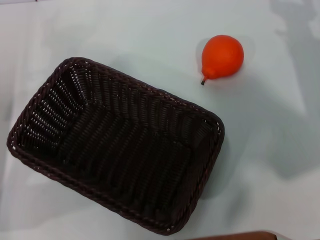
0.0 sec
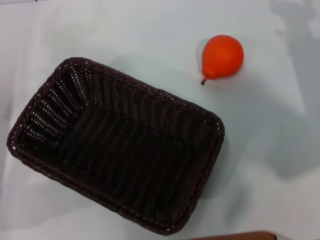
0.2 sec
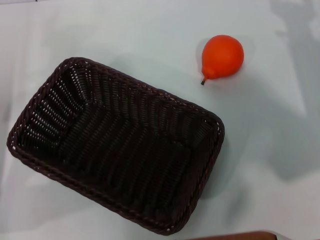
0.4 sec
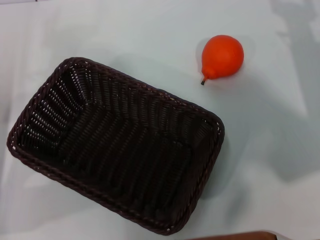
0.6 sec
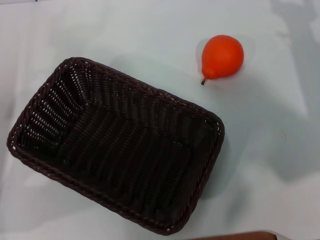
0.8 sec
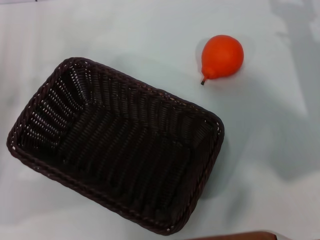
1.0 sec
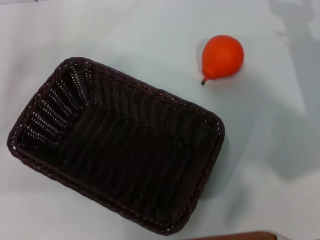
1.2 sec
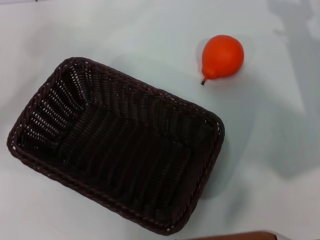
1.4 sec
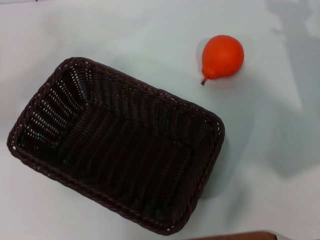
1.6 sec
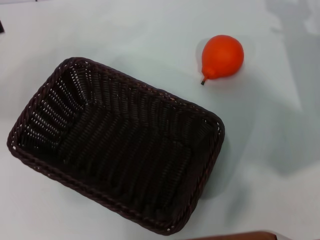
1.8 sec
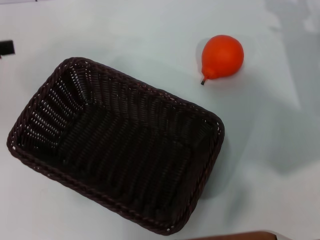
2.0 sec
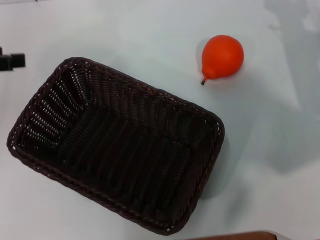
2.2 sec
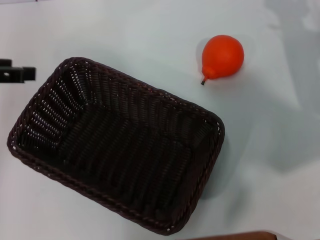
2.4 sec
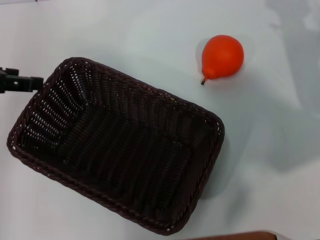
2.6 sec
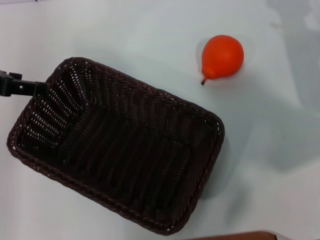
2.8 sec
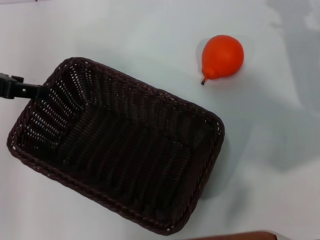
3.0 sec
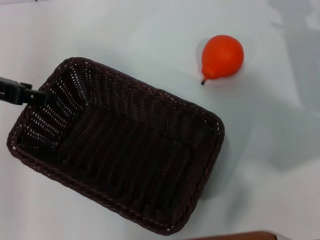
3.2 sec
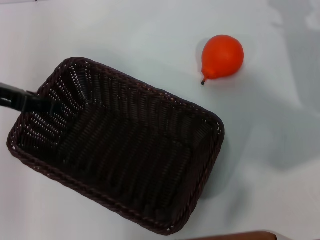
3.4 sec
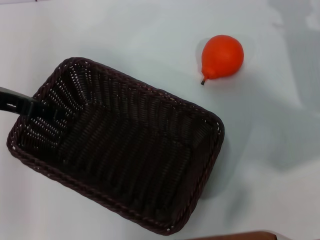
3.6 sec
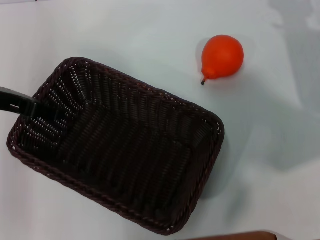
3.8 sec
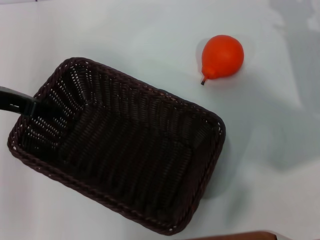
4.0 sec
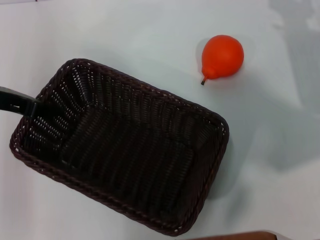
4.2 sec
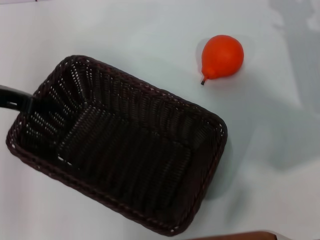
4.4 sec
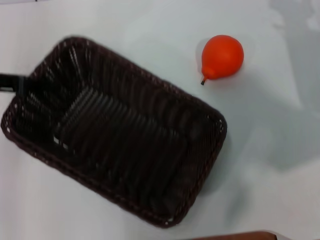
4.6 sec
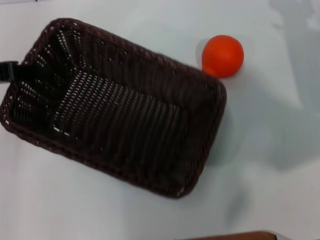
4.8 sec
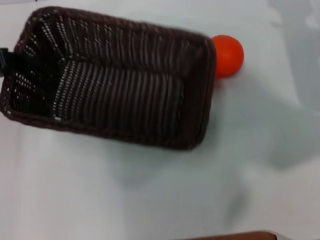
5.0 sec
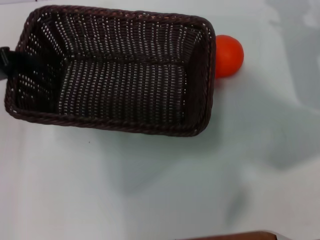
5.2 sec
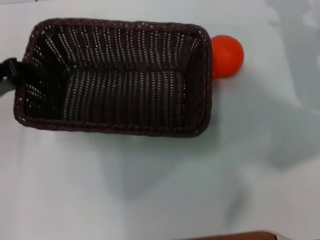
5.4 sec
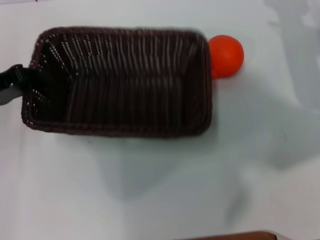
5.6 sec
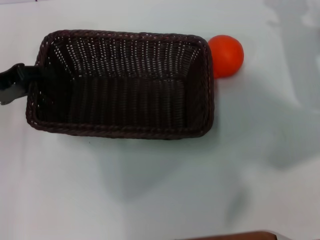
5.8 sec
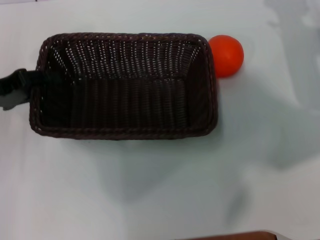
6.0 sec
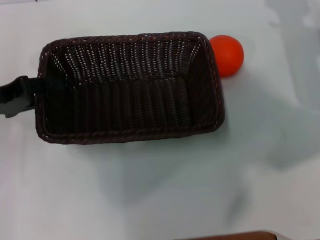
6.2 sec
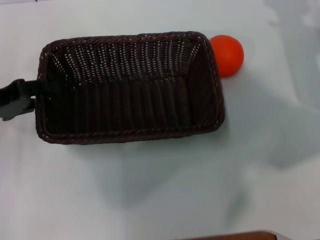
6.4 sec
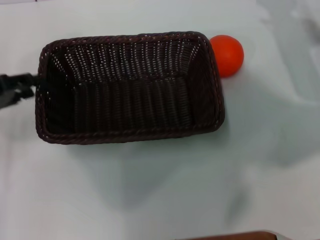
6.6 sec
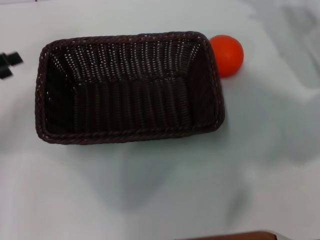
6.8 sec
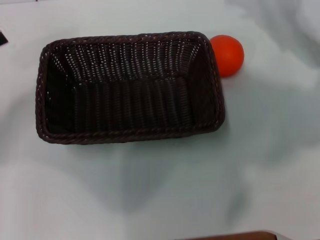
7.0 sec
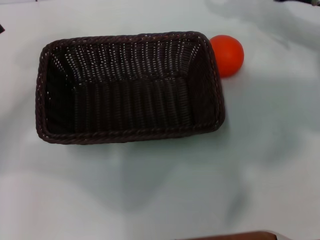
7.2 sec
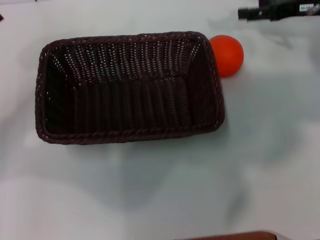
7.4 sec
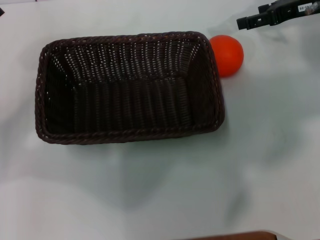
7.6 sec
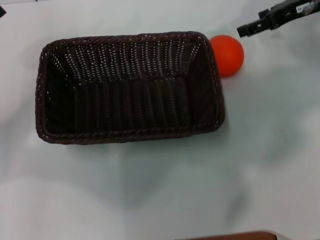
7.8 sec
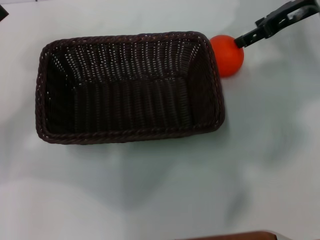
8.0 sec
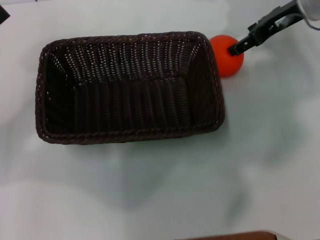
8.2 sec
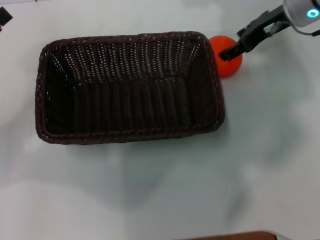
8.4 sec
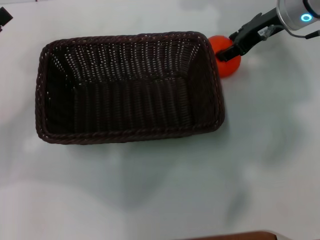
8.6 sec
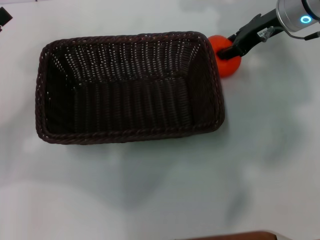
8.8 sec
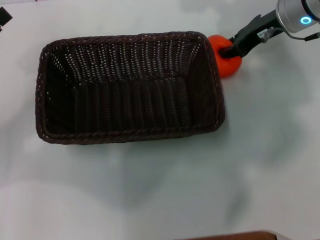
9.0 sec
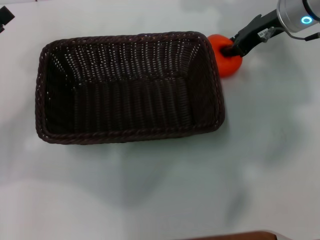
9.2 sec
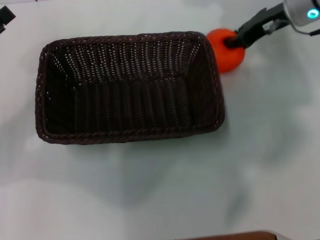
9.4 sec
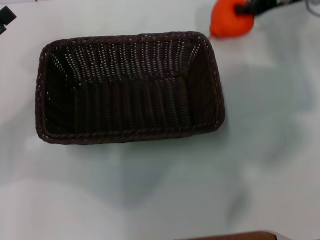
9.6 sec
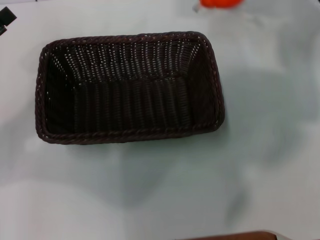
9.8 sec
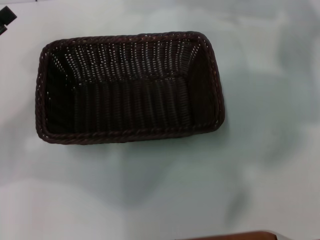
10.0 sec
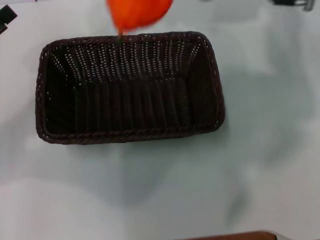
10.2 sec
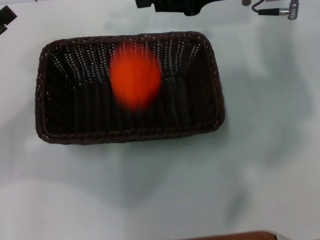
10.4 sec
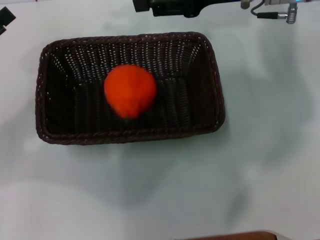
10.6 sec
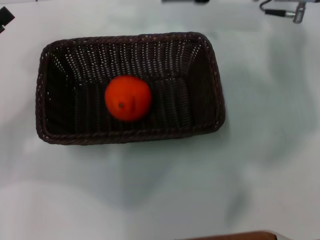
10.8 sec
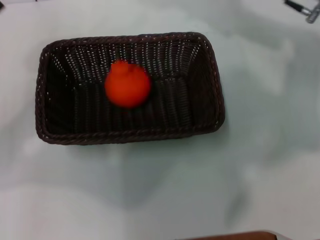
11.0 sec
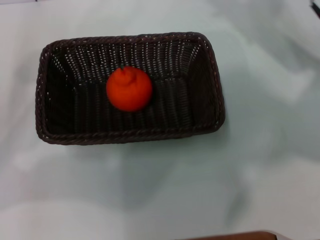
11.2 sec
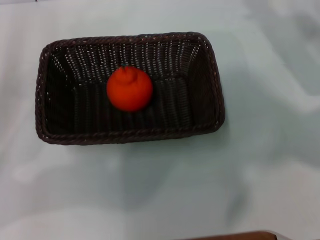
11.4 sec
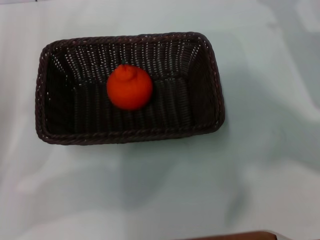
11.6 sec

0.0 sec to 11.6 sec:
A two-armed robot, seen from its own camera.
Task of the whole recording: the left gripper pick up the black basket and place it horizontally in the middle of the table, the right gripper pick up the orange and place it into the black basket.
Step, 0.0 sec to 4.4 sec: Pick up the dark basket with the left gripper.
Step, 4.6 sec to 6.4 sec: Place the dark basket in the center of view with the left gripper.
Step, 6.6 sec to 9.4 sec: Pick up the orange with the right gripper.
Step, 9.6 sec to 10.4 sec: Place the orange into the dark basket with the right gripper.
0.0 sec to 1.4 sec: The left gripper moves upward and to the left, approximately 10 cm.
1.4 sec to 2.8 sec: The left gripper heads to the right and upward, covering roughly 10 cm.
2.8 sec to 4.4 sec: The left gripper closes its fingers.
4.4 sec to 5.8 sec: The left gripper shifts by about 5 cm.
5.8 sec to 7.2 sec: The left gripper ends up roughly 5 cm from where it was, and opens. The right gripper moves upward and forward, roughly 10 cm.
7.2 sec to 8.8 sec: The right gripper travels to the left by about 10 cm.
8.8 sec to 10.2 sec: The right gripper goes roughly 5 cm upward, and closes.
10.2 sec to 11.6 sec: The right gripper goes some 20 cm to the right, downward and backward, and opens its fingers.

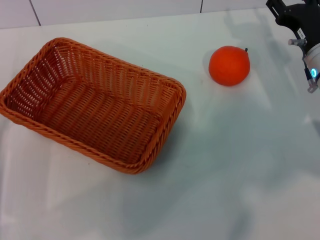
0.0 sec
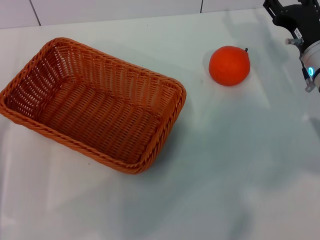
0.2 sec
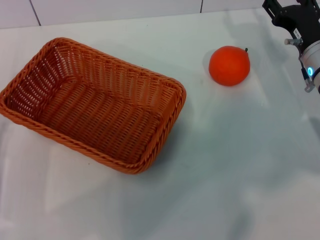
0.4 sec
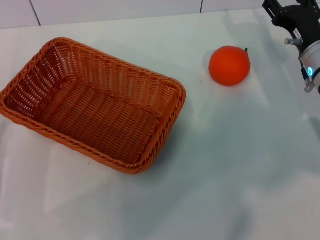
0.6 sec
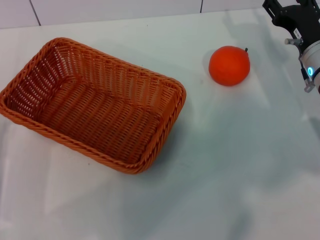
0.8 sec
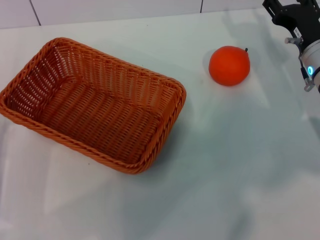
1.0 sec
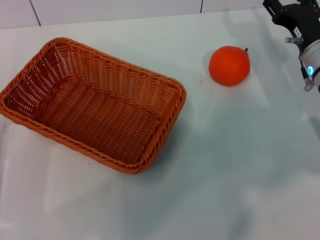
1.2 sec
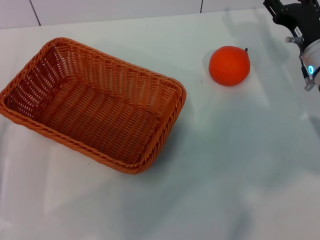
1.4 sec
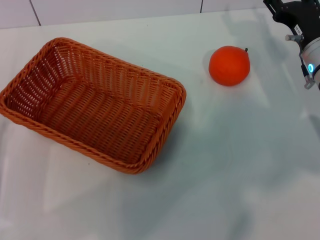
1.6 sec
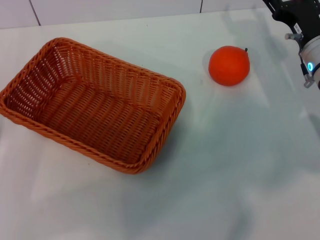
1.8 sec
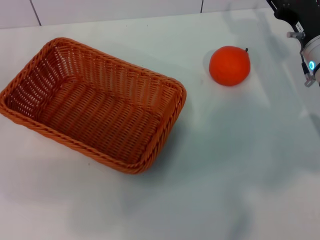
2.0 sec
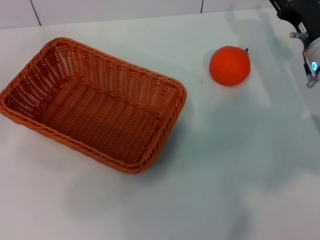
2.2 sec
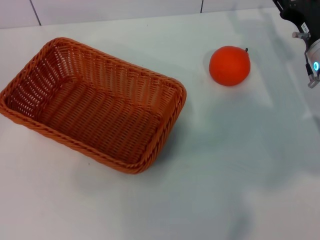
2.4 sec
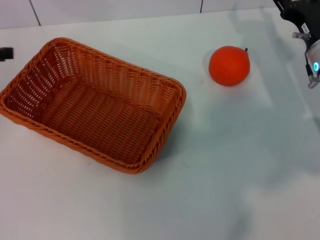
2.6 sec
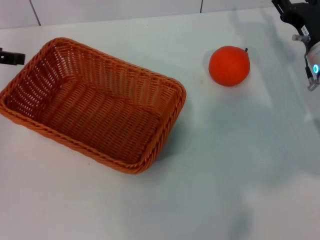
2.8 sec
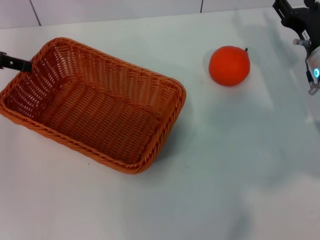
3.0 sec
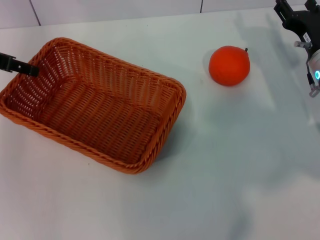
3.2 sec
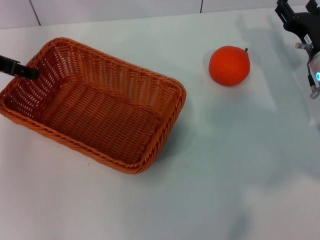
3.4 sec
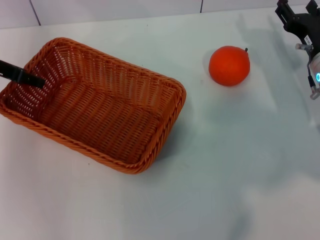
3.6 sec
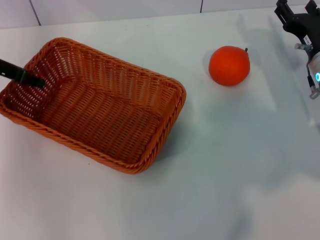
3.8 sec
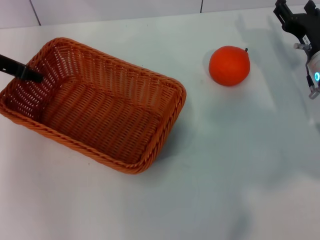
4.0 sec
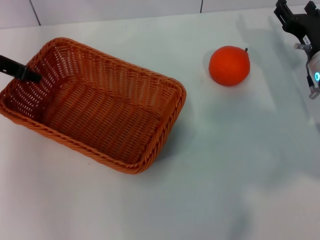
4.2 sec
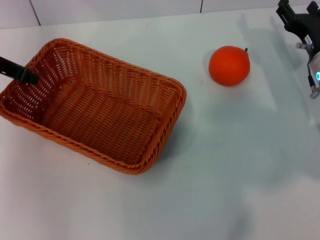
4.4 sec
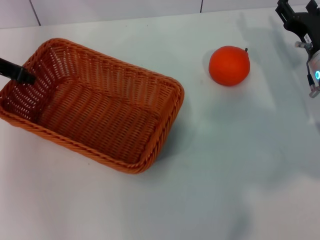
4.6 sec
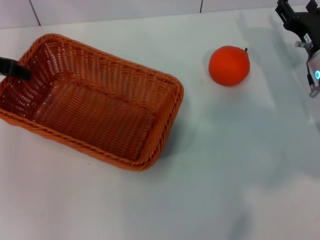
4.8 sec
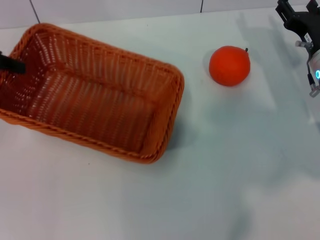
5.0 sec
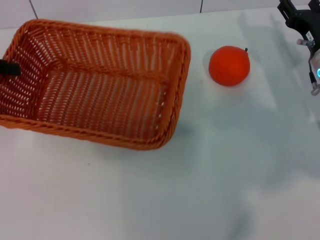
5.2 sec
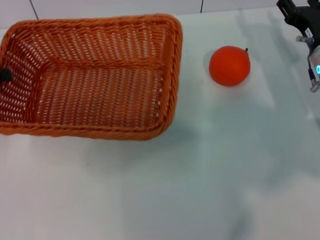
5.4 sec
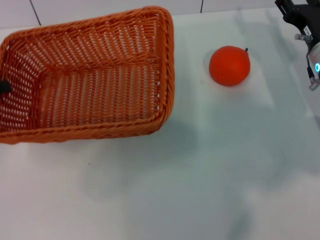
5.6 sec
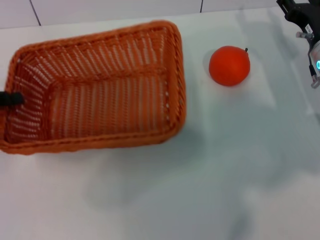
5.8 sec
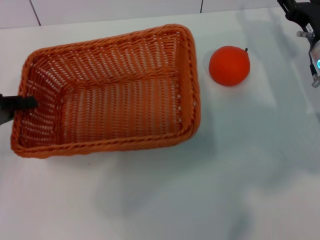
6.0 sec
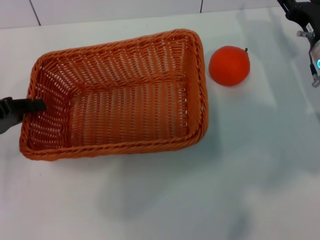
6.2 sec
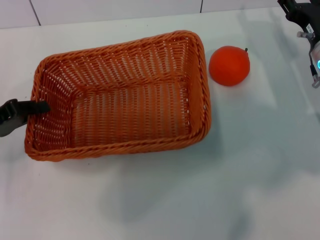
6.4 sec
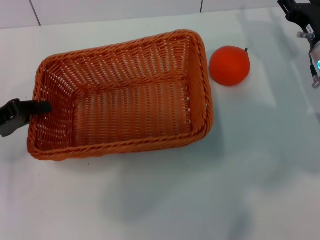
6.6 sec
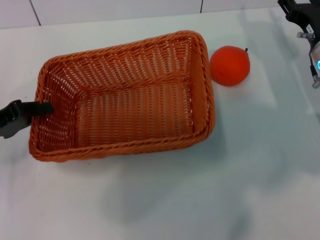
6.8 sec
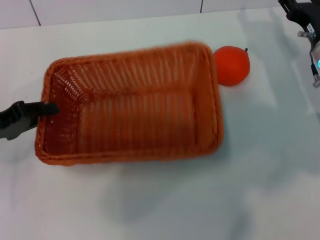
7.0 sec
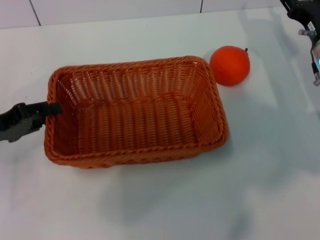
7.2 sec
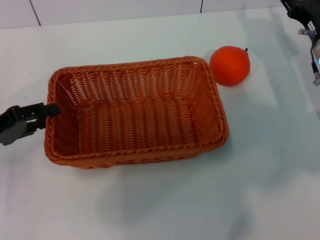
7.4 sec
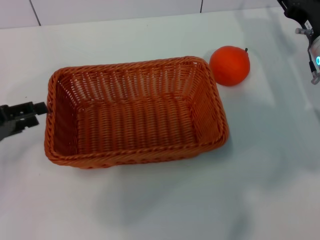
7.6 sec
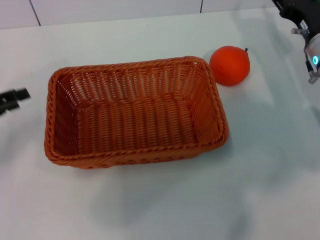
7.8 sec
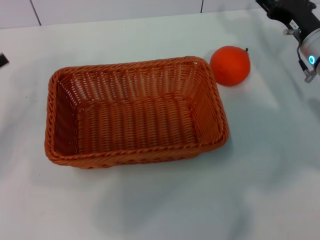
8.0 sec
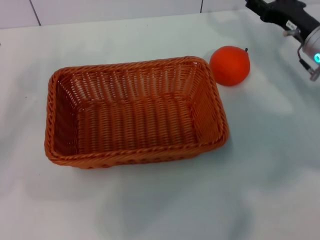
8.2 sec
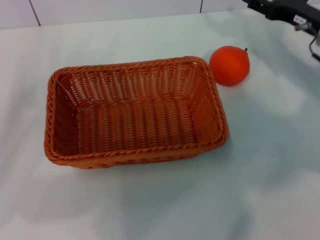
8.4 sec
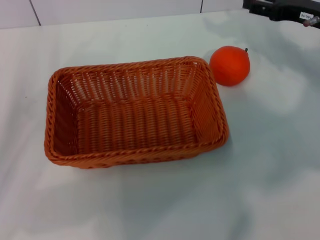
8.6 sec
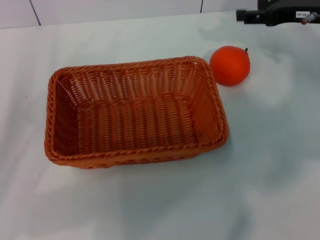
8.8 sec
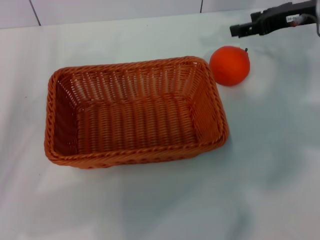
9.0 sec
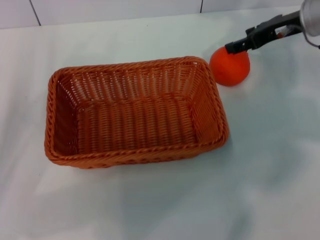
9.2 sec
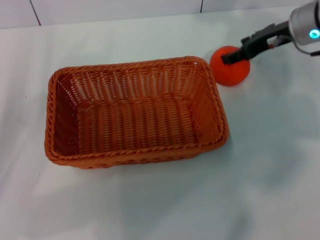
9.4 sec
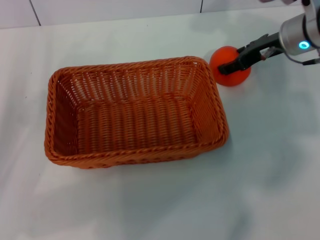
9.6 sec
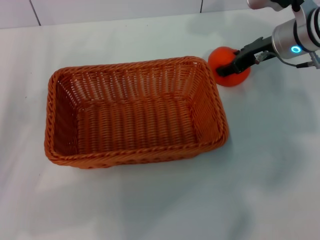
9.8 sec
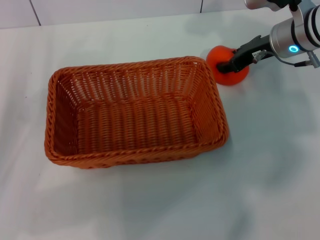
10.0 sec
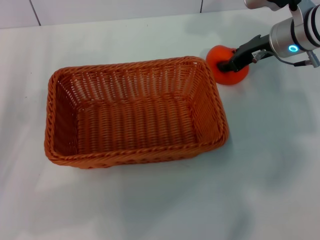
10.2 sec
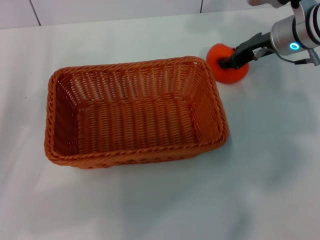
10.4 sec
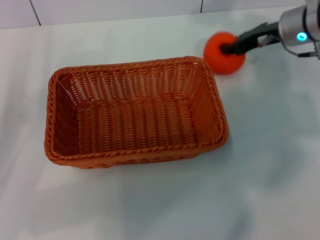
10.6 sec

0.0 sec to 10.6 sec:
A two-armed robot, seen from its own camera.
Task of the whole recording: the left gripper pick up the yellow basket and place it horizontally in the middle of the table, the right gripper pick up the orange and place it into the yellow basket.
Step, 0.0 sec to 4.8 sec: Pick up the light basket with the left gripper.
Step, 5.0 sec to 7.4 sec: Place the light basket in the center of view with the left gripper.
Step, 7.8 sec to 10.6 sec: Pick up the orange with the right gripper.
0.0 sec to 1.6 sec: Both grippers stay about where they are.
1.6 sec to 3.0 sec: The left gripper shifts some 20 cm upward and forward.
3.0 sec to 4.6 sec: The left gripper closes its fingers.
4.6 sec to 6.0 sec: The left gripper travels backward, downward and to the left by approximately 15 cm.
6.0 sec to 7.6 sec: The left gripper opens up.
7.6 sec to 9.0 sec: The right gripper heads upward, covering about 10 cm.
9.0 sec to 10.6 sec: The right gripper moves about 5 cm, and closes its fingers.
